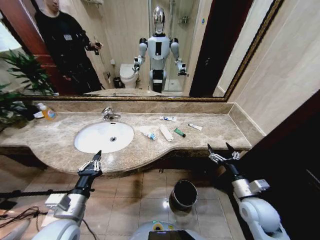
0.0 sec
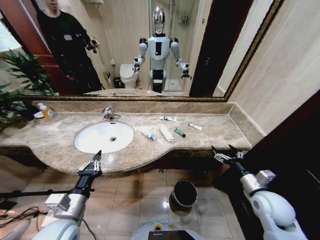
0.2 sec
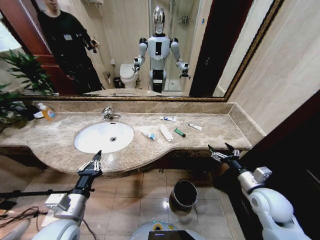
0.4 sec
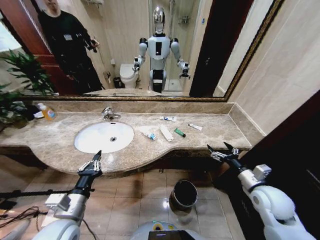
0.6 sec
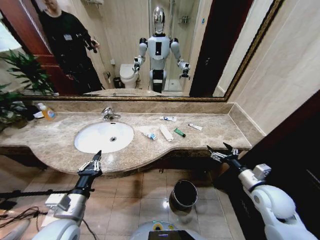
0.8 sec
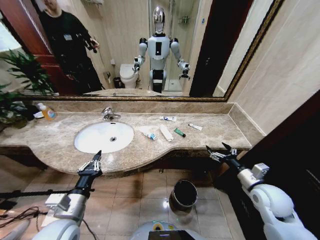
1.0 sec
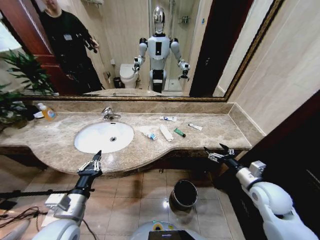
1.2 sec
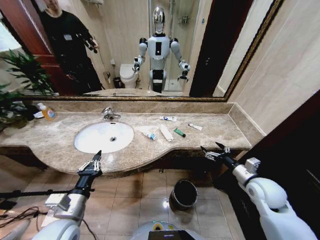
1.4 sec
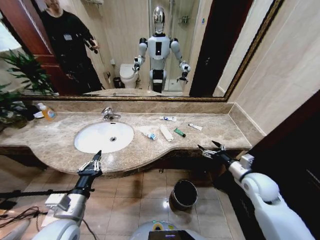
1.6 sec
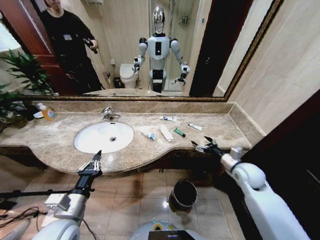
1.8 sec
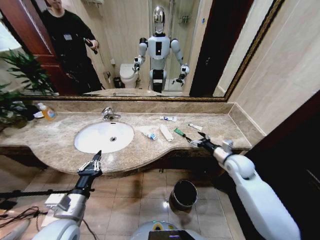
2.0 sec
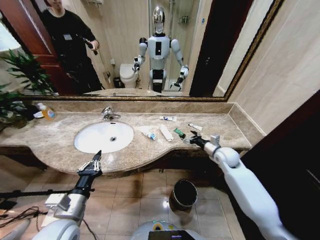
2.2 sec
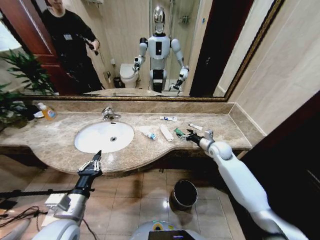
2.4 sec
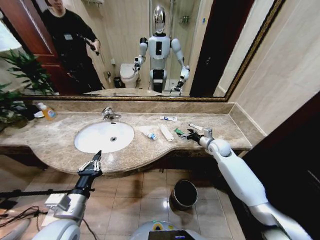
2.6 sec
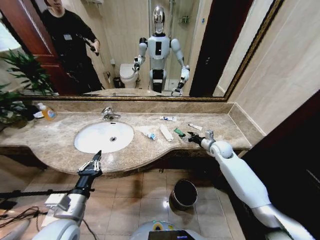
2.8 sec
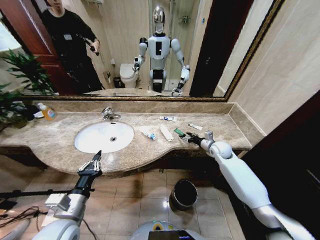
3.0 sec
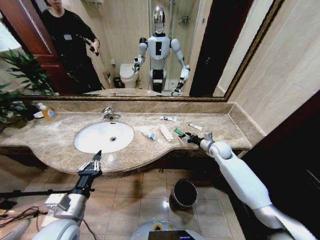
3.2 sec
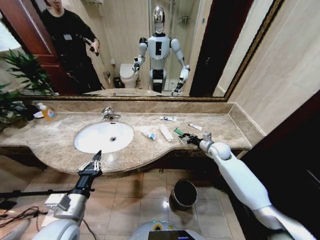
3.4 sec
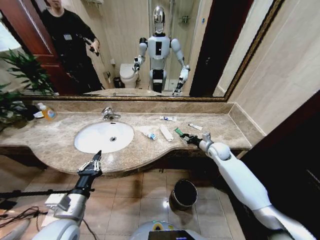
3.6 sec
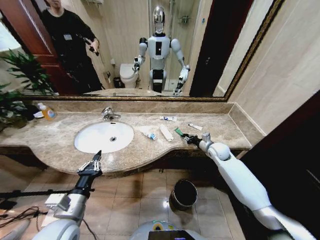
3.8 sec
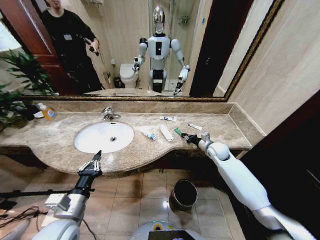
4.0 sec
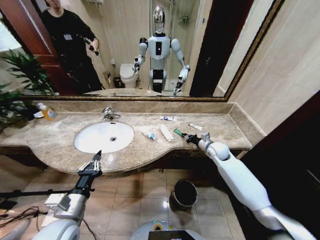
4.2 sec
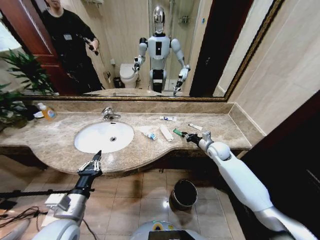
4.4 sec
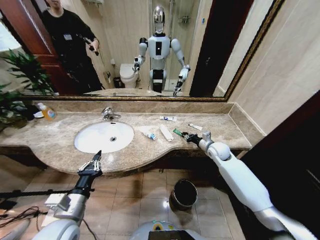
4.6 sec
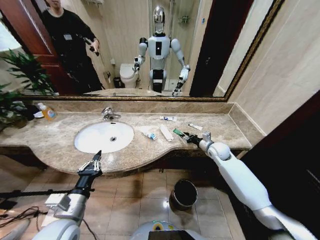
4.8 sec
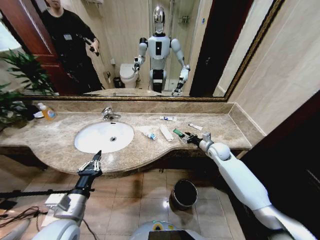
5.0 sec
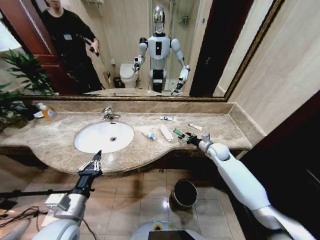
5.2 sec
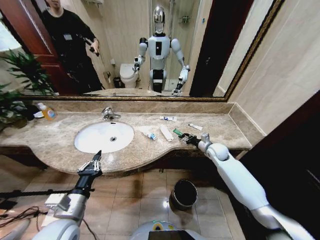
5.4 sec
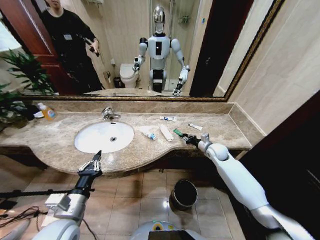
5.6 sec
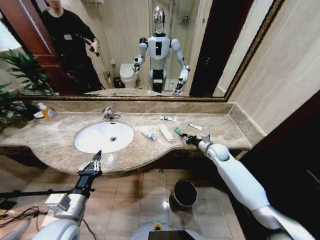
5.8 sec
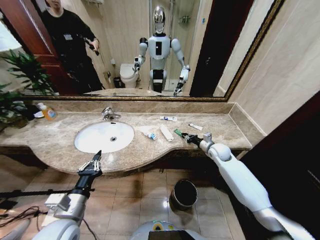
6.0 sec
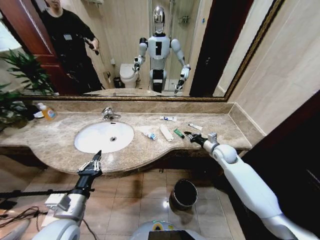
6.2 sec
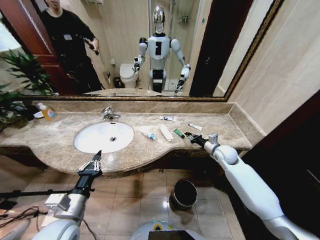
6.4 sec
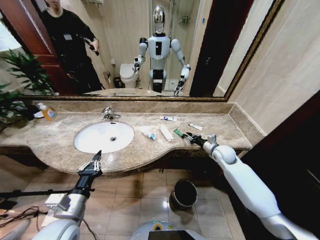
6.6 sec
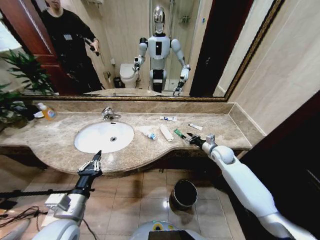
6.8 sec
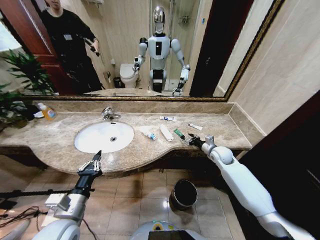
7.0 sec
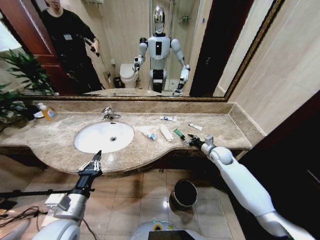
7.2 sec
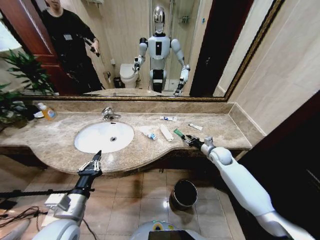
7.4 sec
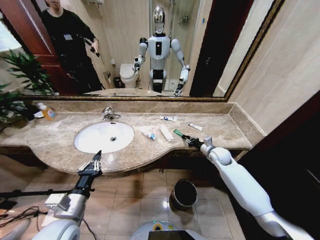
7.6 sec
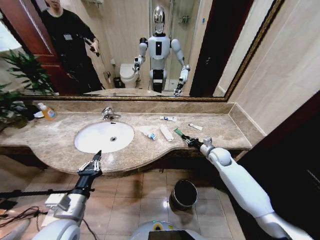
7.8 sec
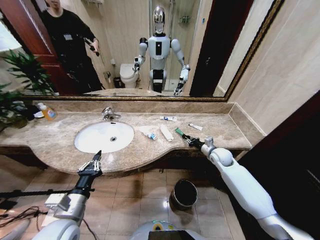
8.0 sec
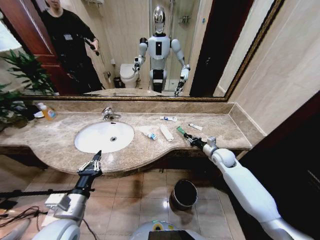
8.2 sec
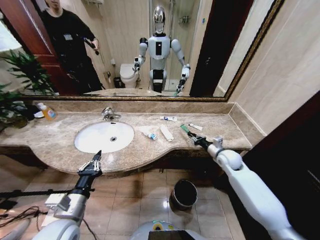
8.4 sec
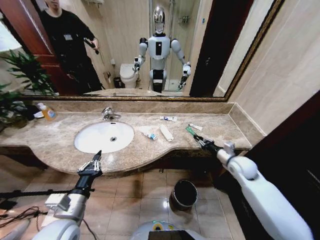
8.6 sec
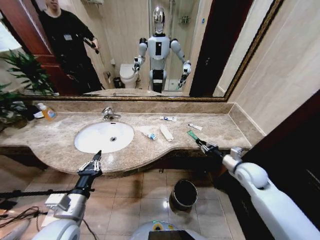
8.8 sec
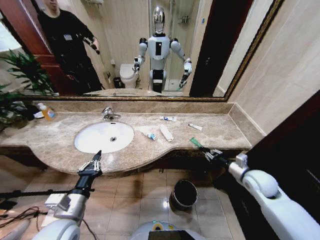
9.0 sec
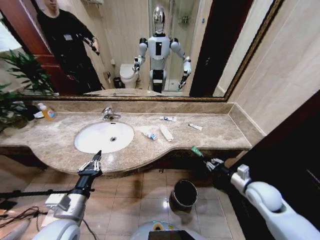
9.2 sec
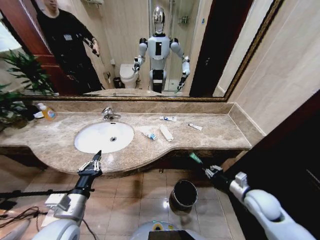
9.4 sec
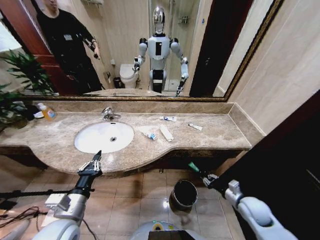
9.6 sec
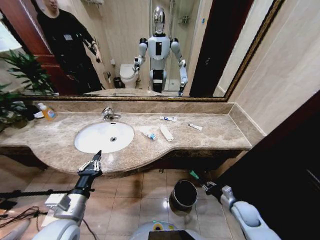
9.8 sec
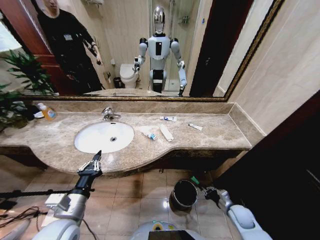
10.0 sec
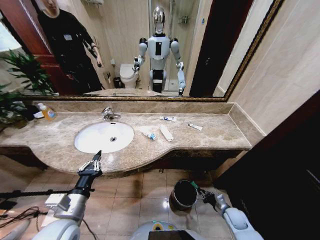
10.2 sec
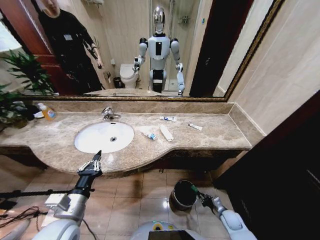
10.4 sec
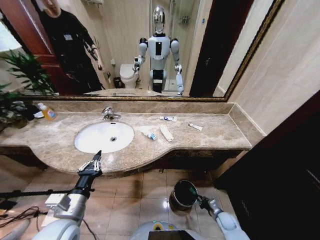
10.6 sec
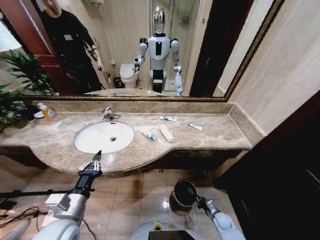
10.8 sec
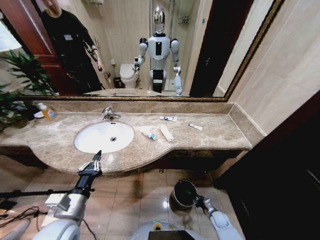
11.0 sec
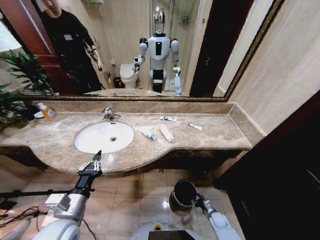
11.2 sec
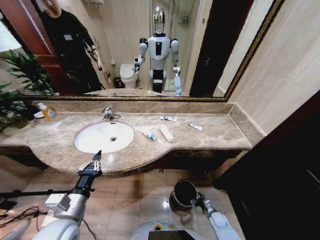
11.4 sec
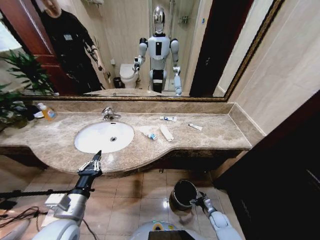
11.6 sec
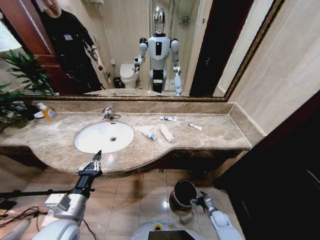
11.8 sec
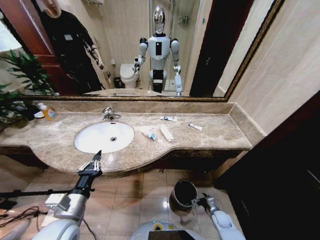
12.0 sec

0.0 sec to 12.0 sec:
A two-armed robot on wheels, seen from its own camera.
Task of the whole recording: Pick up the trash from the sink and place it in the trash bin.
1.6 sec to 3.0 sec: The right gripper goes some 20 cm forward.
3.0 sec to 4.4 sec: The right gripper closes.
4.4 sec to 6.0 sec: The right gripper opens, then closes once more.
6.0 sec to 7.6 sec: The right gripper opens and closes again.
7.6 sec to 9.0 sec: The right gripper goes about 15 cm backward and to the right.
9.0 sec to 10.4 sec: The right gripper travels downward by approximately 30 cm.
10.4 sec to 12.0 sec: The right gripper opens.

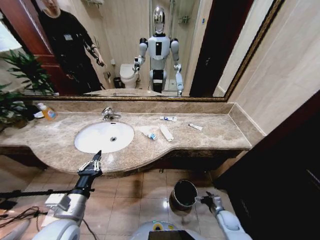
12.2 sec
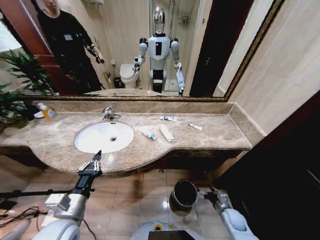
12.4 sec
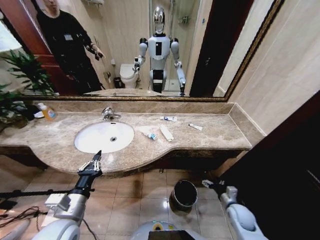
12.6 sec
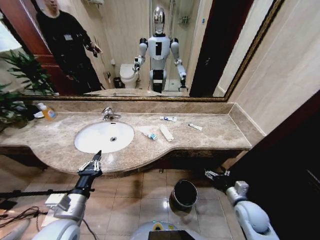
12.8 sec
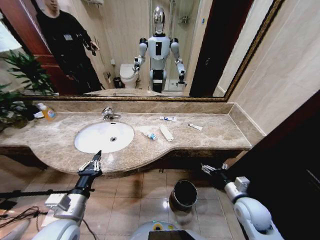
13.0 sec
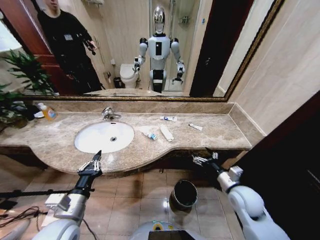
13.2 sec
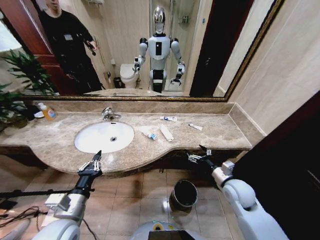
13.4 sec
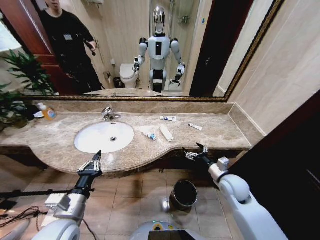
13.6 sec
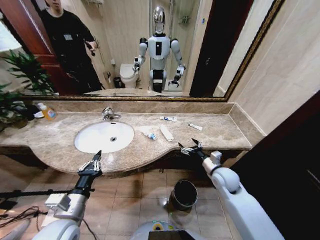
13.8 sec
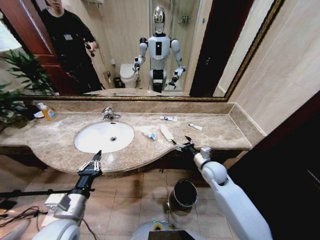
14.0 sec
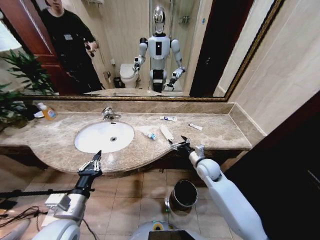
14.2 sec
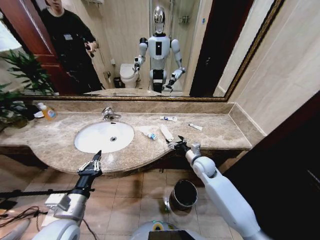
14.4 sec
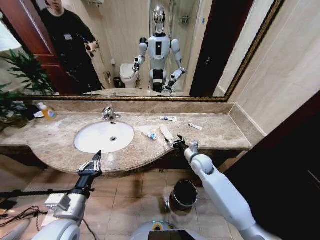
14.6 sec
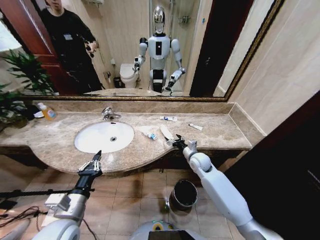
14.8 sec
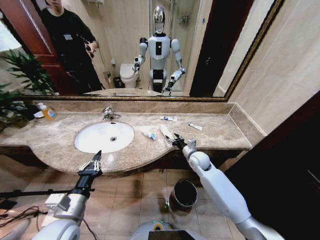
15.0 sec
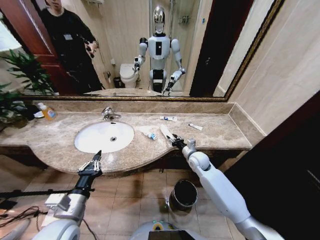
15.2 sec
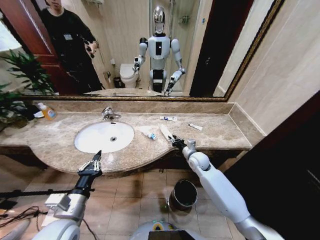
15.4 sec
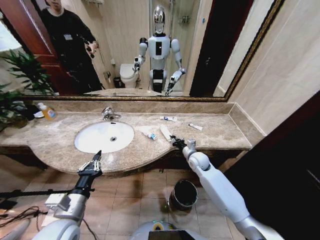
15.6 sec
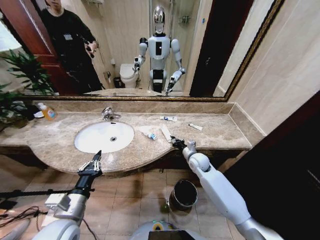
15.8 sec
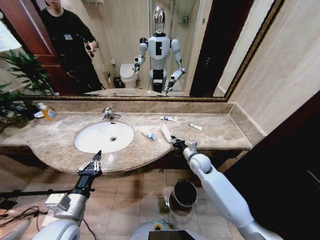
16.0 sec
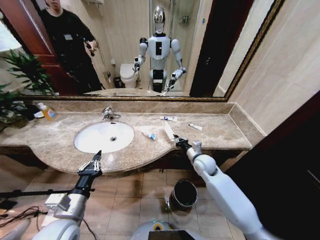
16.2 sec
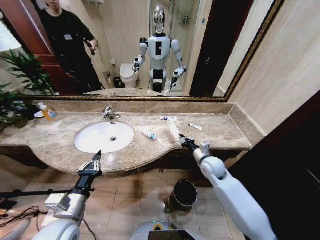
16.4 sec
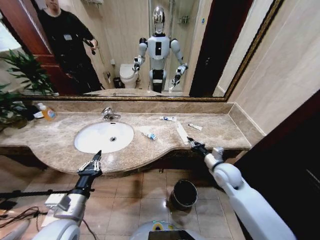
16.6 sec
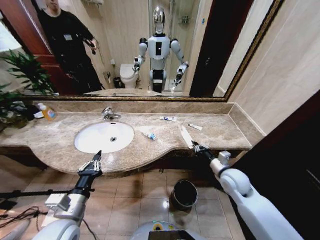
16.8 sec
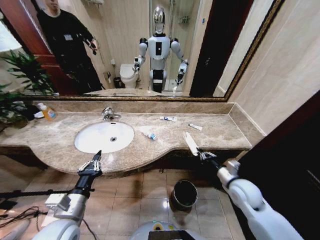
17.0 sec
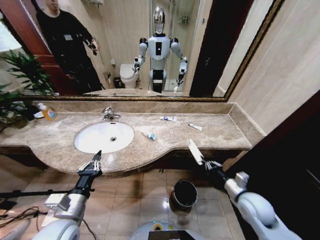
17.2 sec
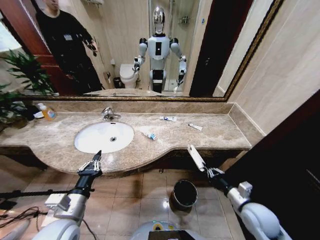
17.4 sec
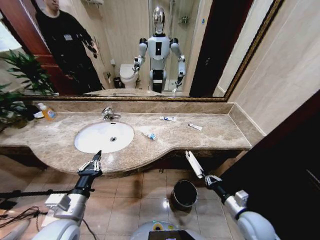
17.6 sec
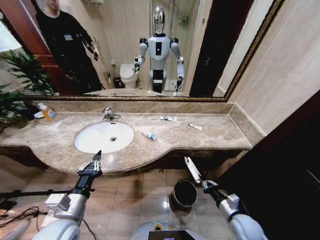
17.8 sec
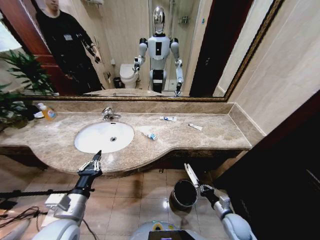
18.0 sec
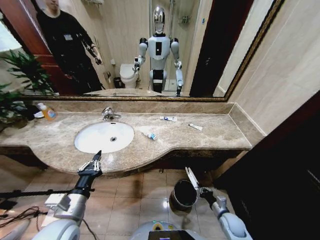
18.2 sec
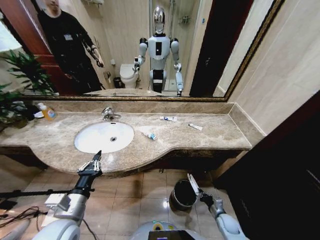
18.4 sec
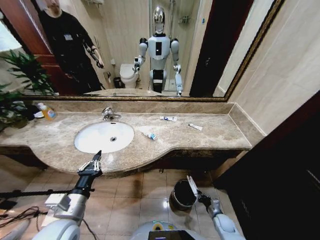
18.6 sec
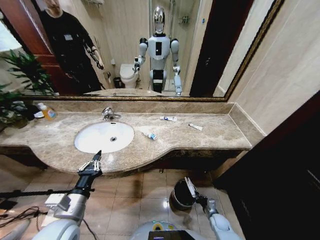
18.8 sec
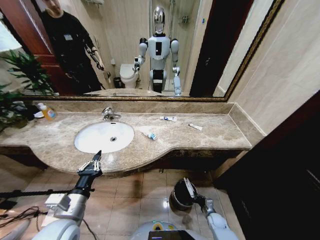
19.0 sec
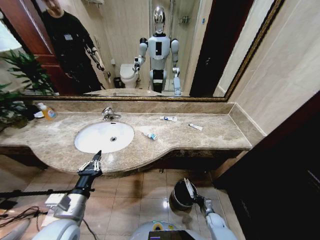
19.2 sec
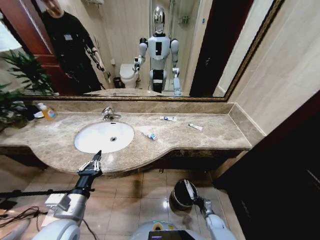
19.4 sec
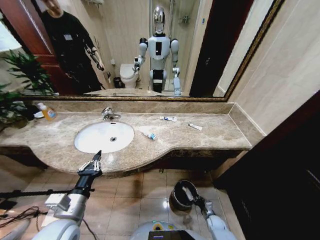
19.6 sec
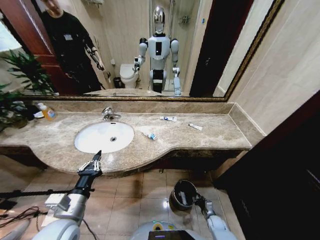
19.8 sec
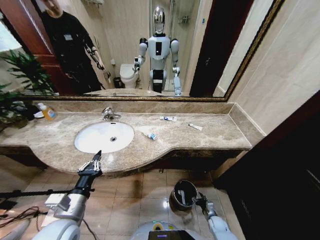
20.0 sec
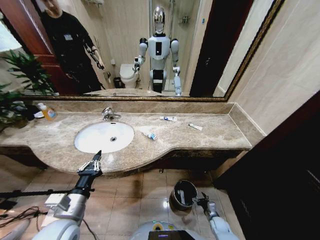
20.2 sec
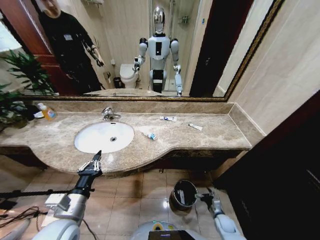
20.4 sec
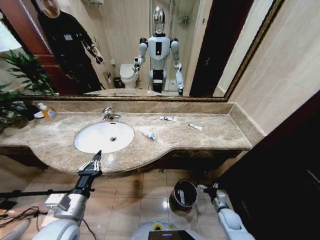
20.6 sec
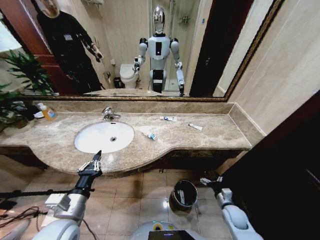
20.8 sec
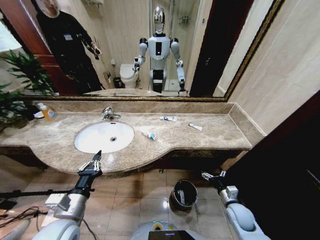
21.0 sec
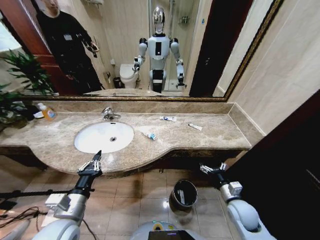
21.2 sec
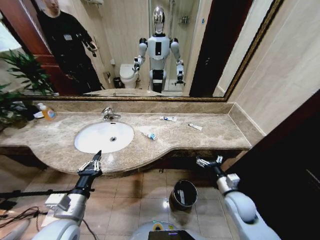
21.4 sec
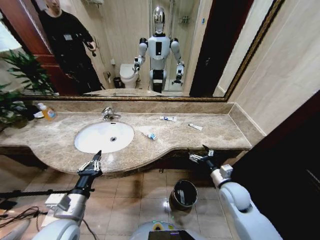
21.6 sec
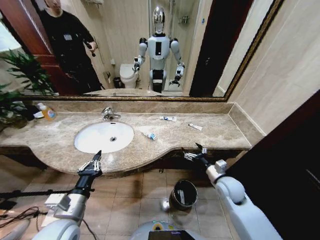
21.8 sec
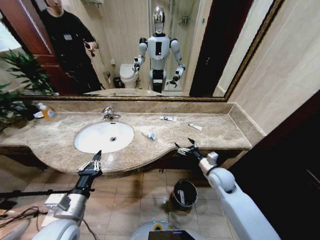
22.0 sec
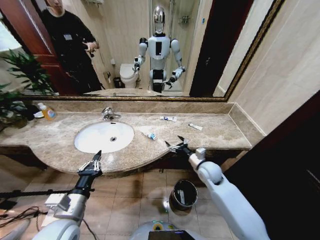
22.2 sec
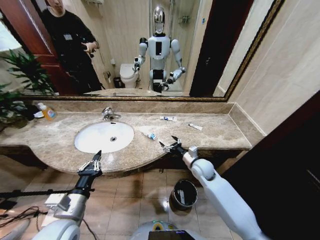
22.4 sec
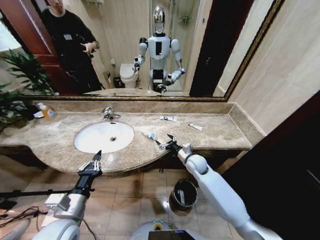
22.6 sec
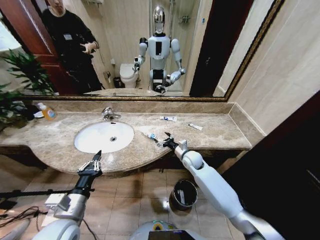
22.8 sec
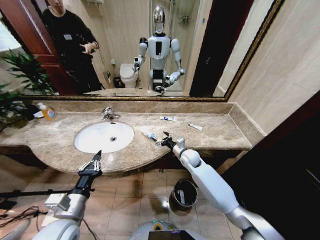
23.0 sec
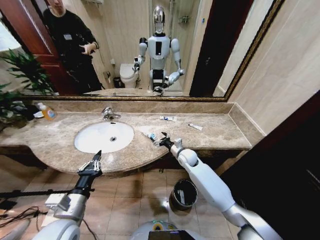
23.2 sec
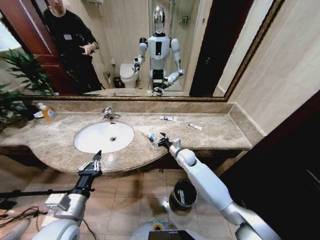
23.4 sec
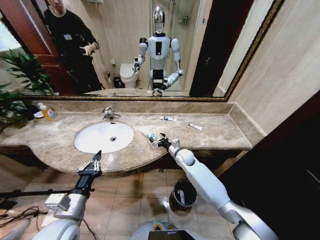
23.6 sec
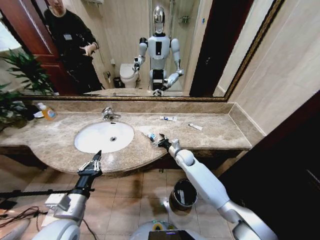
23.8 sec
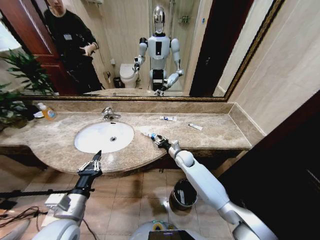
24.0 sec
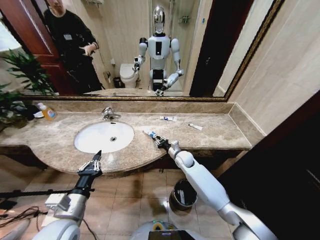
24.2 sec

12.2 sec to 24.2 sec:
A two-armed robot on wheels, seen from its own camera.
Task of the whole recording: Pick up the trash from the sink and place it in the trash bin.
12.2 sec to 13.8 sec: The right gripper is displaced upward and forward by some 30 cm.
13.8 sec to 15.2 sec: The right gripper is displaced forward and to the left by approximately 10 cm, and closes.
15.2 sec to 16.6 sec: The right gripper heads backward and to the right, covering roughly 10 cm, and closes its fingers.
16.6 sec to 18.2 sec: The right gripper is displaced downward and backward by some 30 cm.
18.2 sec to 19.8 sec: The right gripper goes roughly 15 cm downward, and opens up.
19.8 sec to 21.2 sec: The right gripper shifts approximately 25 cm upward, and opens.
21.2 sec to 22.6 sec: The right gripper shifts roughly 25 cm forward and to the left.
22.6 sec to 24.2 sec: The right gripper travels forward by roughly 5 cm, and closes its fingers.
